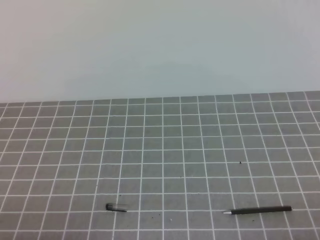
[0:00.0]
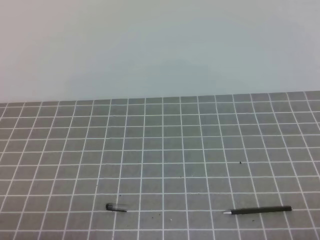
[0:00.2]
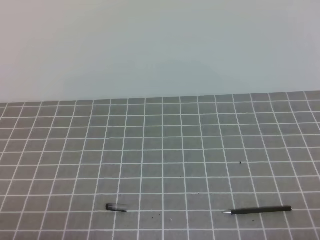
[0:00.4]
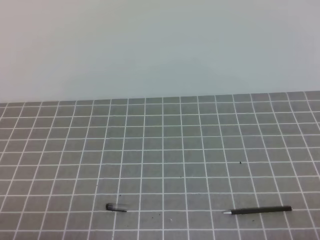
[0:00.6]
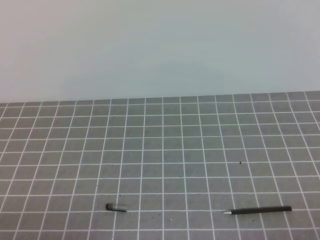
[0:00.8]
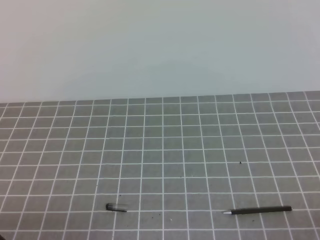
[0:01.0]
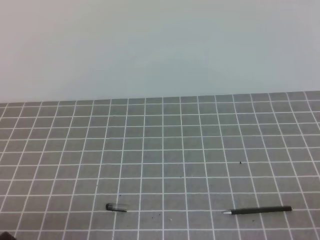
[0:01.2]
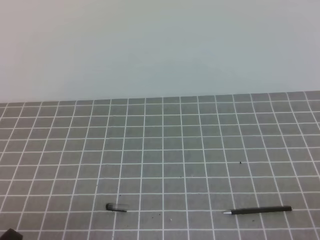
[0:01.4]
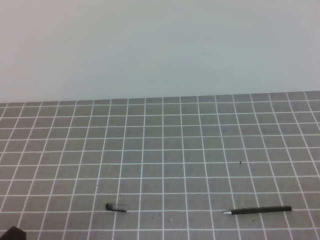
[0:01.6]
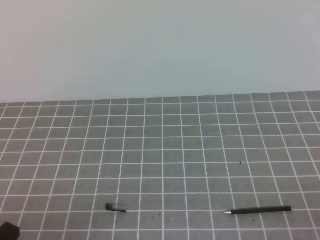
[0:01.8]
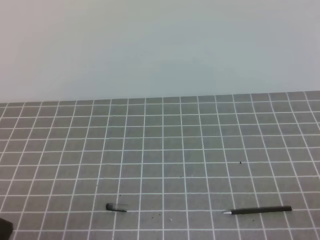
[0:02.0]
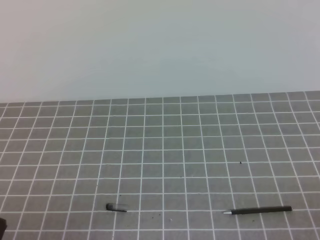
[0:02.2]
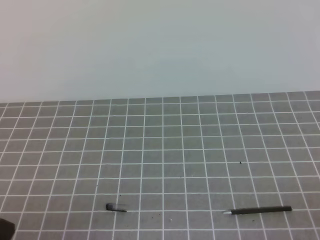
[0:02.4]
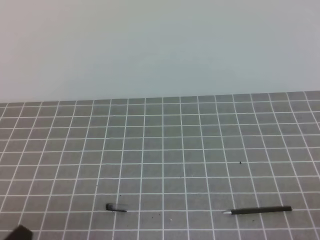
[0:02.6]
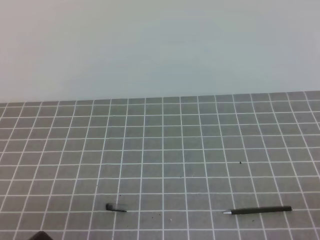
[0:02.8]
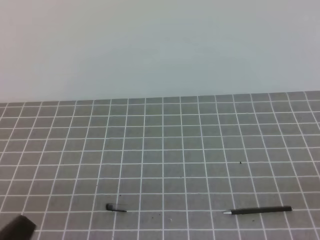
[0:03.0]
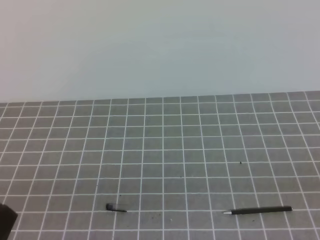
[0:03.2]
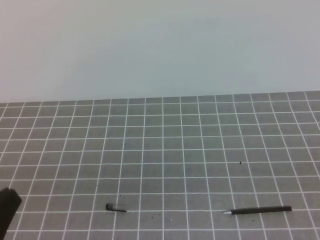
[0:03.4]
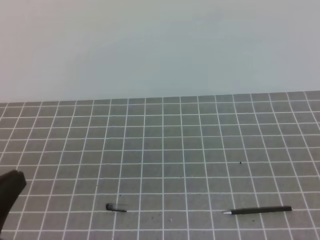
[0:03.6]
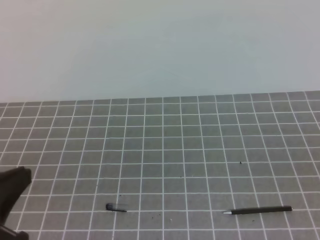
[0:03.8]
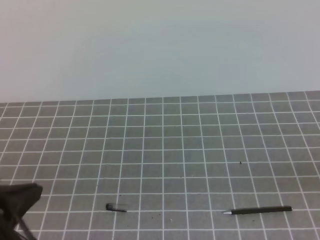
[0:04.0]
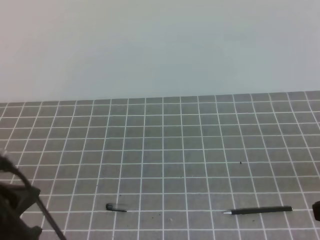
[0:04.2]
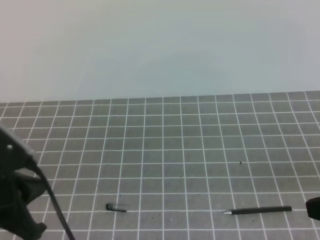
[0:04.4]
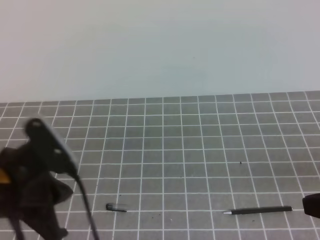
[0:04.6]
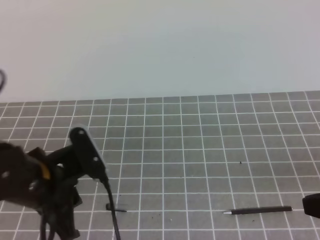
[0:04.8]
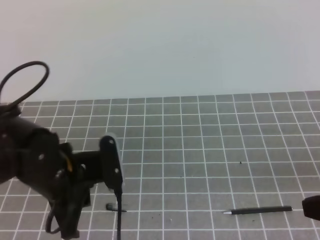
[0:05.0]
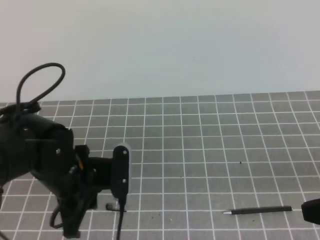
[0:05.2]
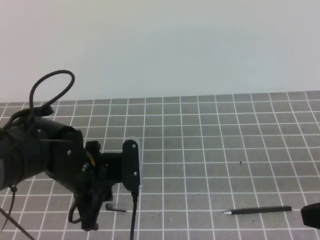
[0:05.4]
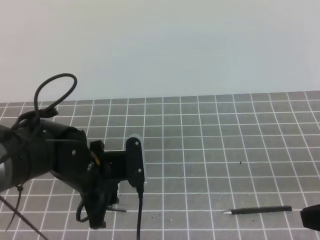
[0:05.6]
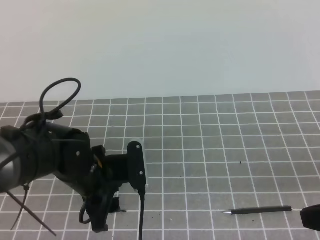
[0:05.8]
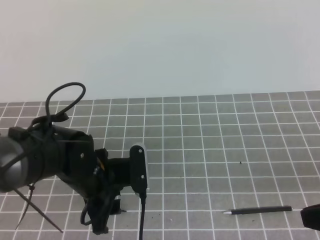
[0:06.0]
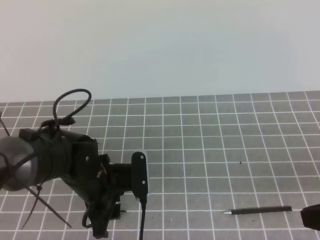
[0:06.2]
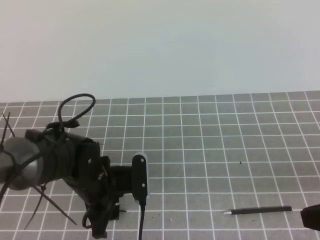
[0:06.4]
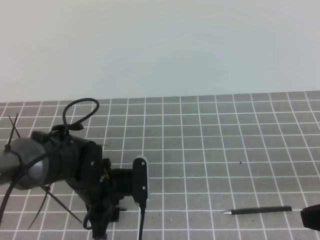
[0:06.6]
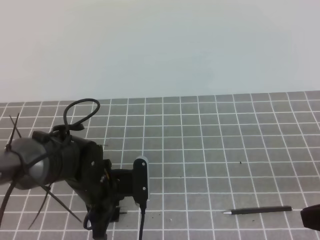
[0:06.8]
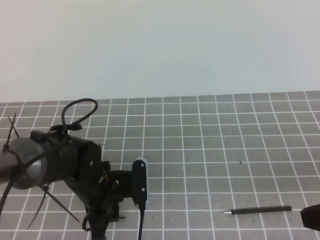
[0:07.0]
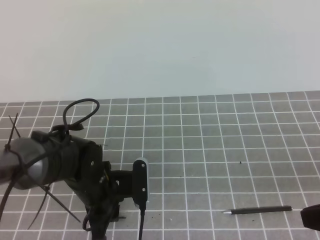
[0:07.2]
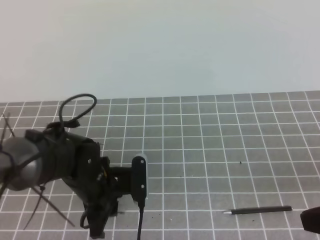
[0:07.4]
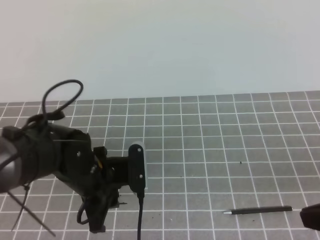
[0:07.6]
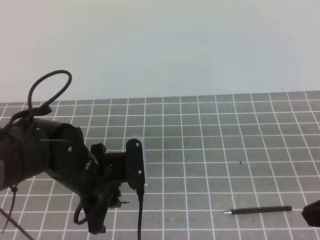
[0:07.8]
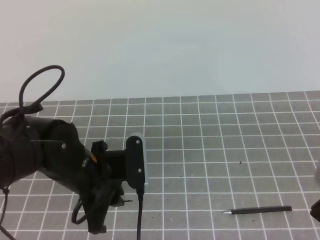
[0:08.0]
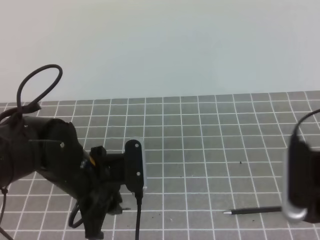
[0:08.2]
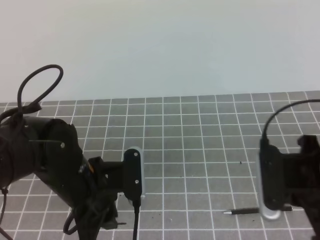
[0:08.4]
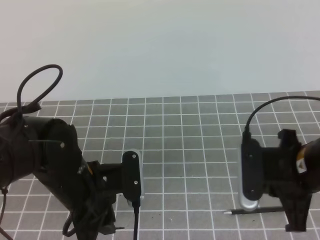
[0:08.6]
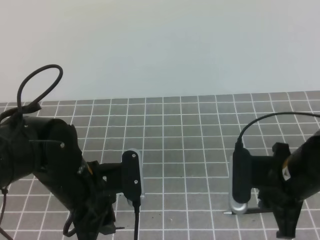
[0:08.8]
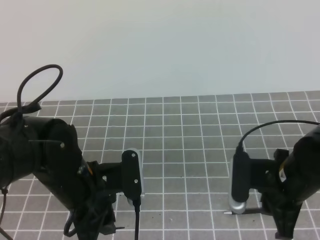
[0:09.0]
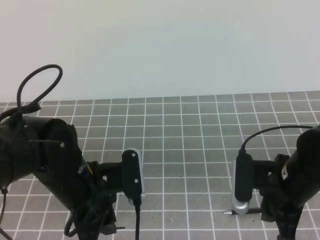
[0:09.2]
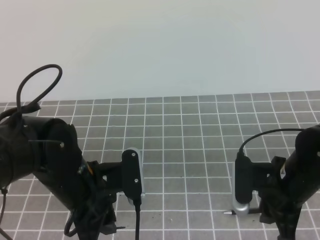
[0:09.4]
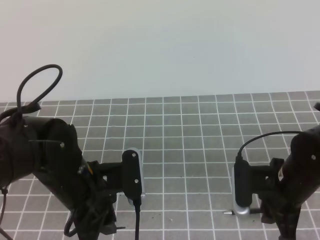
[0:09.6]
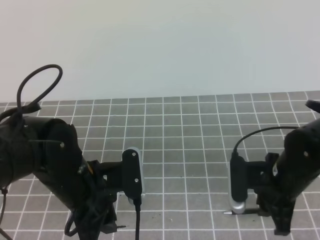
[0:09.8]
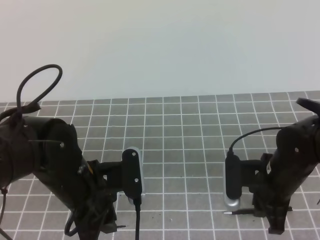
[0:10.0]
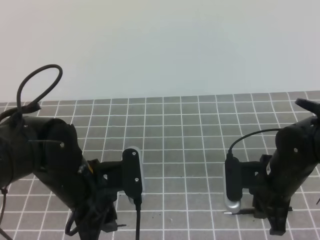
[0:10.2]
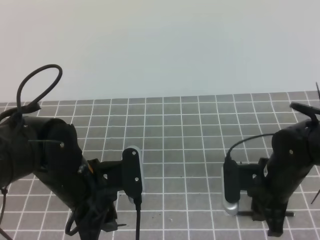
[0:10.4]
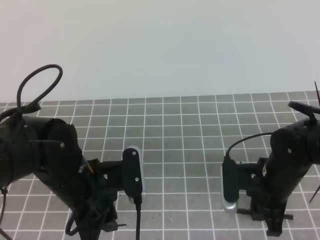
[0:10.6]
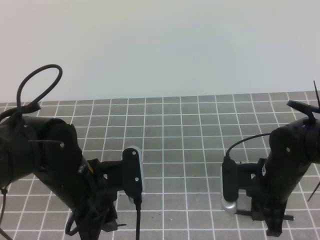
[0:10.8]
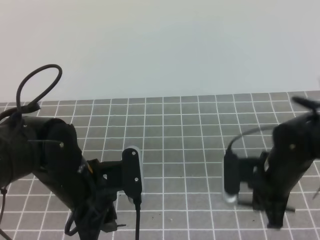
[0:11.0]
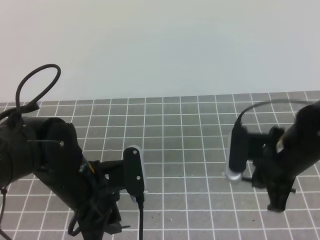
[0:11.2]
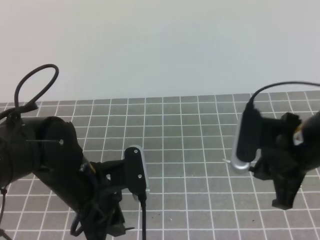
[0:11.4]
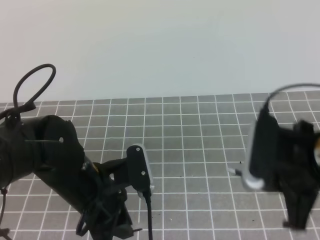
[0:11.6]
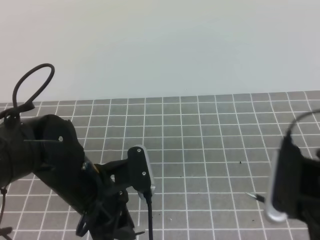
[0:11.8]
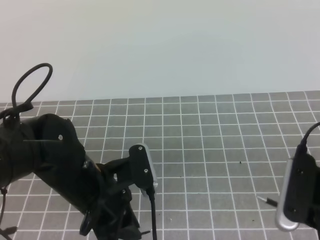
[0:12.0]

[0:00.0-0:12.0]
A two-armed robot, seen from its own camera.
Task of the whole recording: on the grey tablecloth, hold the pen cap in one hand and the pen in the other, then cover the pen cap.
0:03.0 to 0:04.4: The left gripper moves forward and upward, some 15 cm.
0:04.4 to 0:06.0: The left gripper is displaced forward, downward and to the right by about 15 cm, and opens.
0:06.0 to 0:07.6: The left gripper closes up.
0:07.6 to 0:09.0: The right gripper shifts approximately 15 cm forward, to the left and downward, and opens.
0:09.0 to 0:10.4: The right gripper is displaced downward by about 5 cm.
0:10.4 to 0:12.0: The right gripper travels upward and backward by approximately 15 cm, and closes.

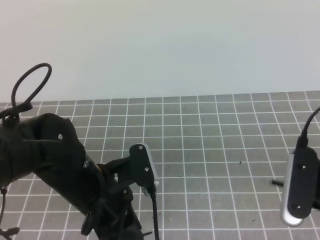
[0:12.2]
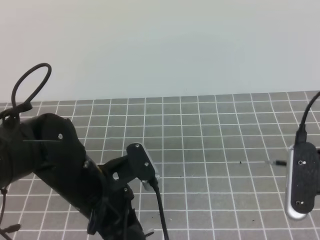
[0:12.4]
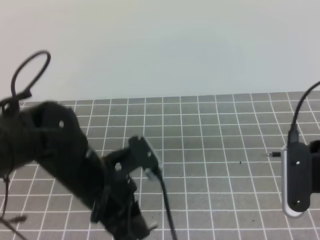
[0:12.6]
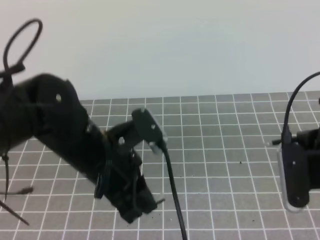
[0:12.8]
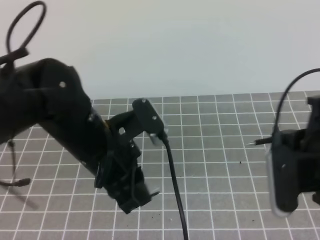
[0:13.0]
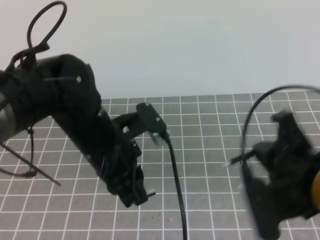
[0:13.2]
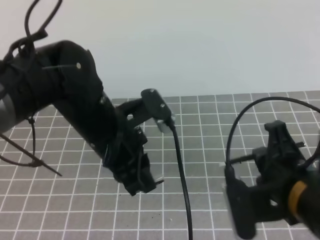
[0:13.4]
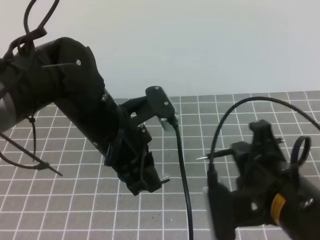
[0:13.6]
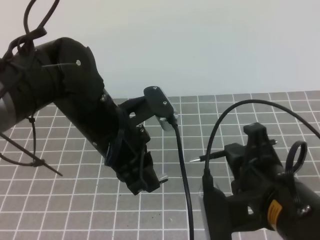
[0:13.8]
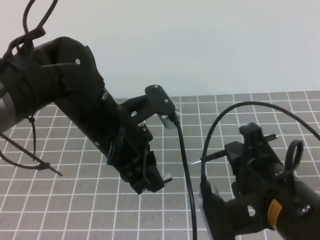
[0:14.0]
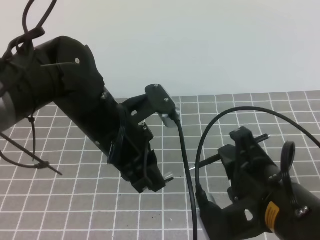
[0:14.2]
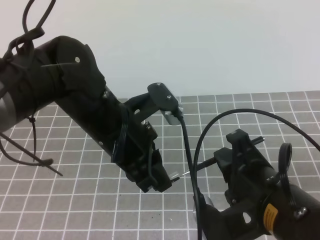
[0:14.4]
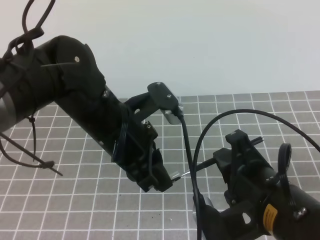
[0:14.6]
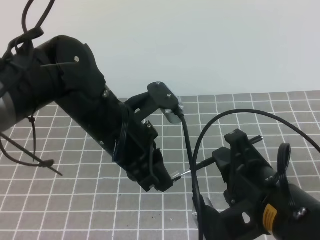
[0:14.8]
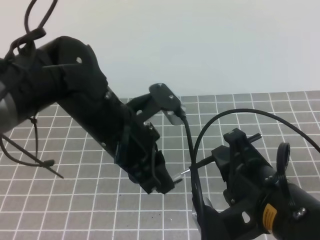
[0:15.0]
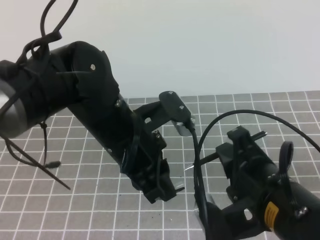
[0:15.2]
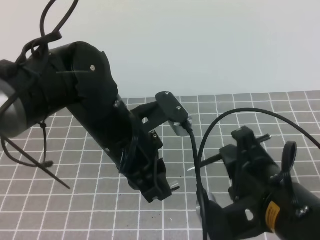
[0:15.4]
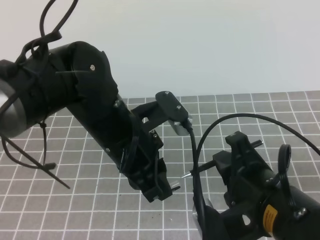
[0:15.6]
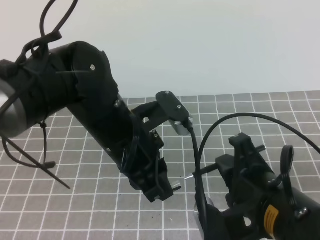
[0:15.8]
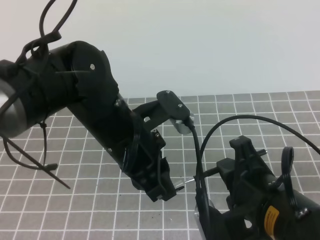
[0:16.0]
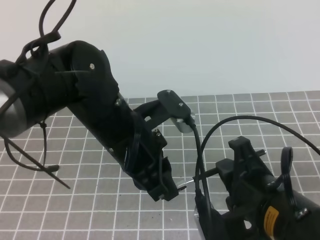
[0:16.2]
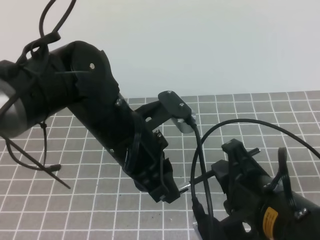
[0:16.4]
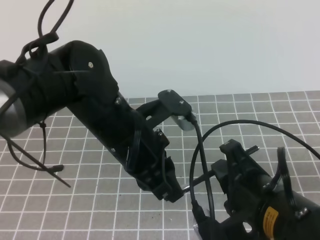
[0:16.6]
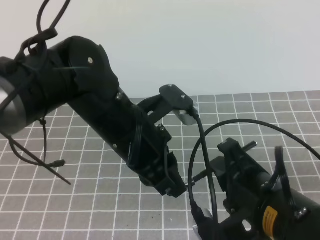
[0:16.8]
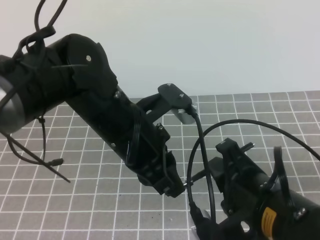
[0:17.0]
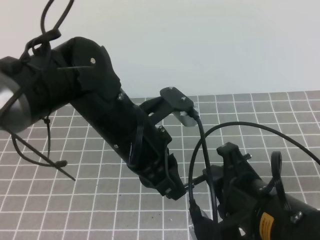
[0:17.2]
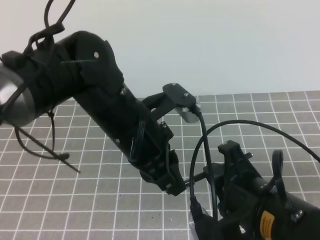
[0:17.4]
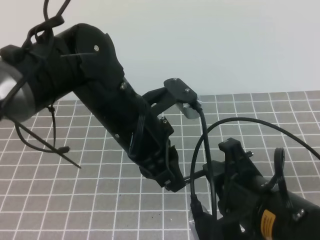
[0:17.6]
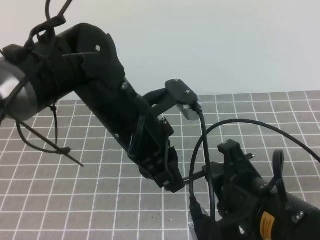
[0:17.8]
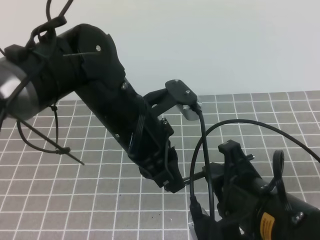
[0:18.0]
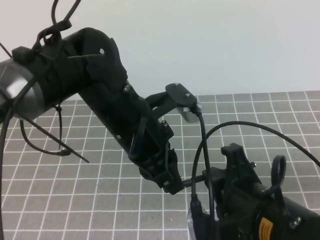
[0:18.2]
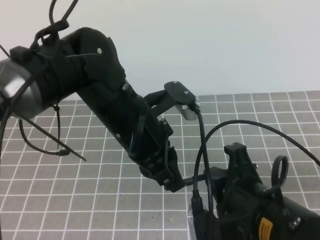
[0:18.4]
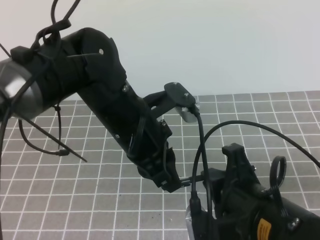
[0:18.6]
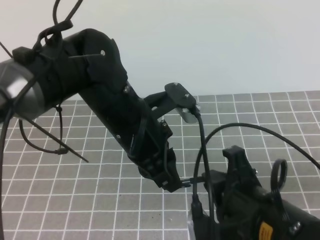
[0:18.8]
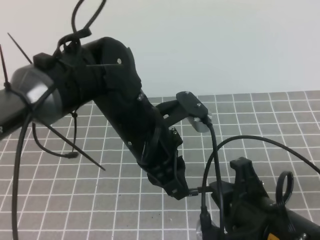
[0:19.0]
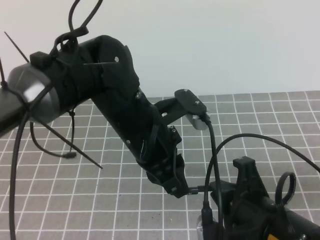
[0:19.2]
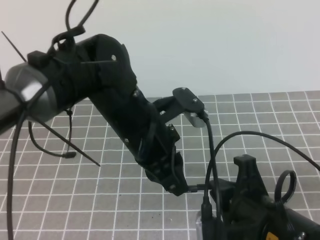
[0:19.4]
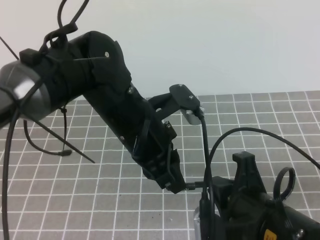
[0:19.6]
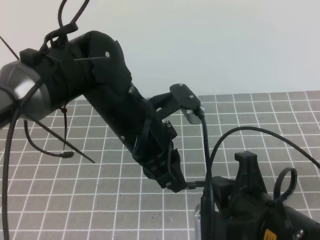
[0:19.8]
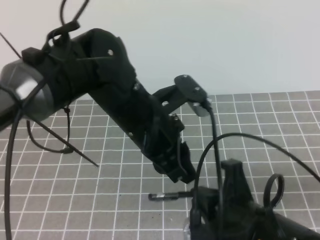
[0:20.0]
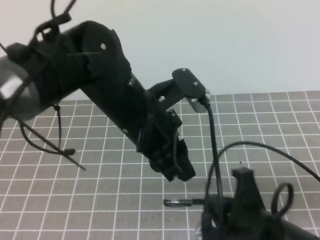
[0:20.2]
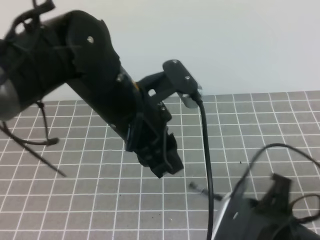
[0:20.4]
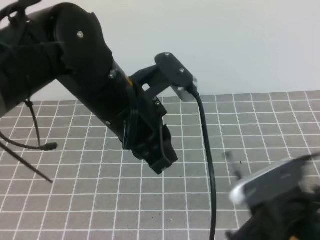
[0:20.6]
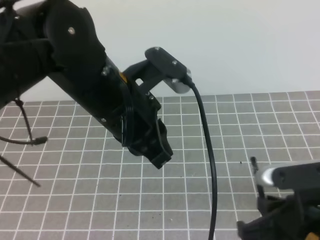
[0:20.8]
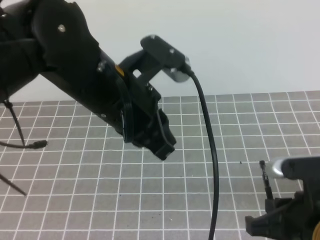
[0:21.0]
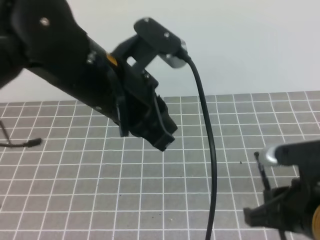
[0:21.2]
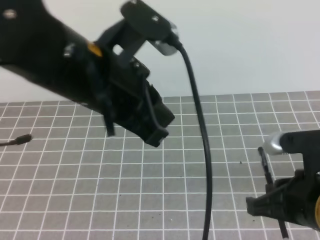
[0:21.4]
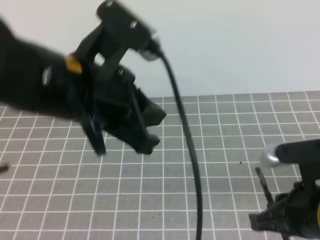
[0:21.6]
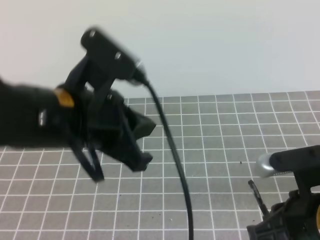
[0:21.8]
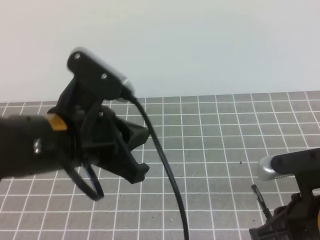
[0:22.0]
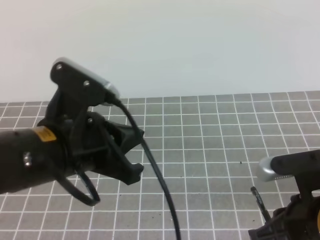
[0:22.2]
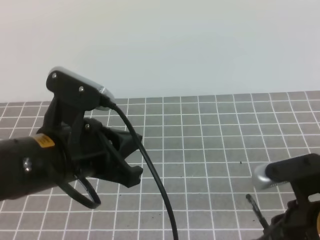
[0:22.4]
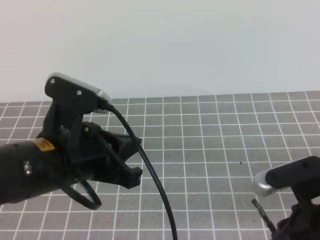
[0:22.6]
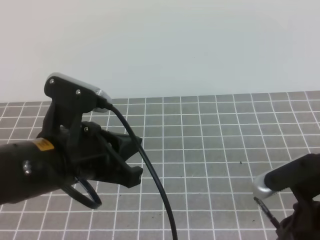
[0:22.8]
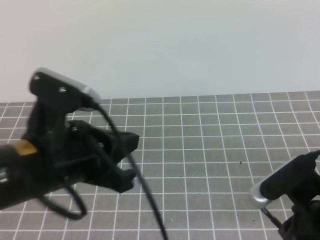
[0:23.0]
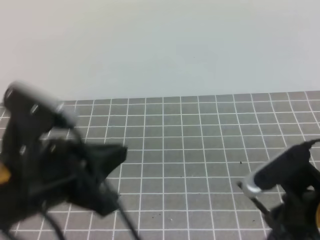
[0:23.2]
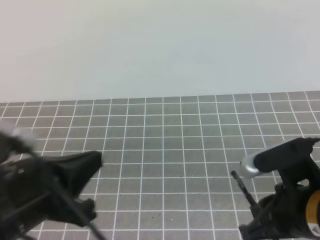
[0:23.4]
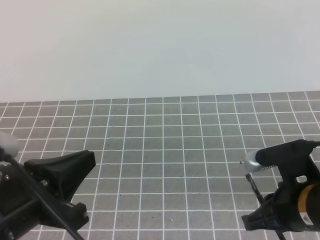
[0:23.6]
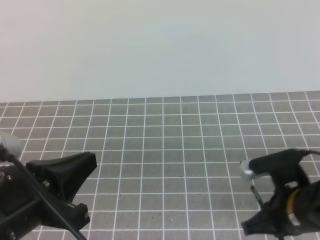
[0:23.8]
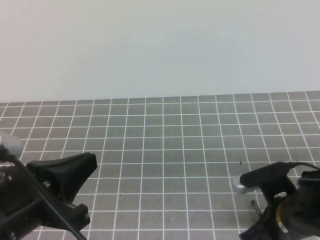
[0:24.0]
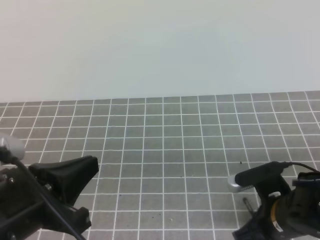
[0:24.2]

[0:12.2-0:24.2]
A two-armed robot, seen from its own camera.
Task of the whole recording: on the grey tablecloth, hold the pen cap in one hand and the pen in the other, then cover the pen cap.
0:12.2 to 0:13.8: The left gripper heads upward, covering roughly 5 cm; the right gripper goes approximately 10 cm to the left.
0:15.2 to 0:16.6: The grippers move only a little.
0:18.2 to 0:19.8: There are only small adjustments of the grippers.
0:19.8 to 0:21.2: The right gripper is displaced to the right by approximately 5 cm, while the left gripper heads upward, covering roughly 10 cm, and closes its fingers.
0:21.2 to 0:22.6: The left gripper goes about 10 cm downward and to the left.
0:22.6 to 0:24.2: The right gripper goes some 10 cm downward and forward; the left gripper shifts approximately 10 cm backward and to the left.
